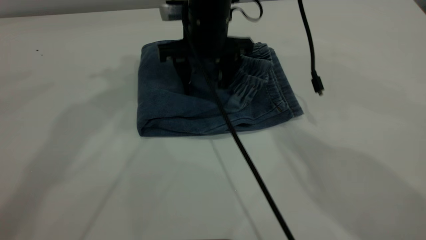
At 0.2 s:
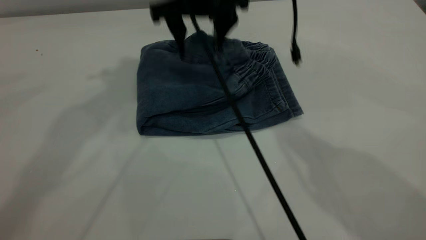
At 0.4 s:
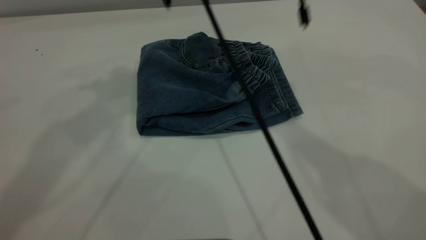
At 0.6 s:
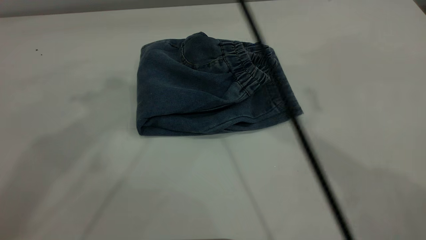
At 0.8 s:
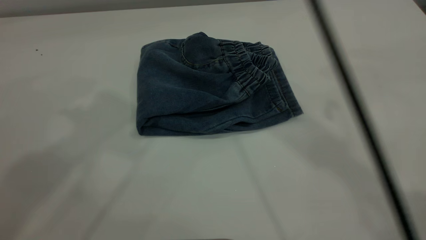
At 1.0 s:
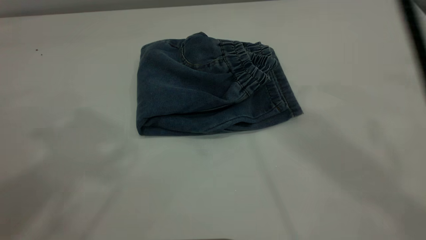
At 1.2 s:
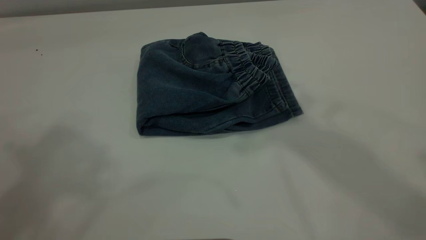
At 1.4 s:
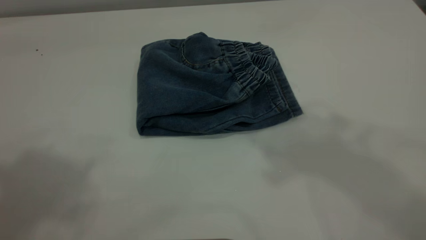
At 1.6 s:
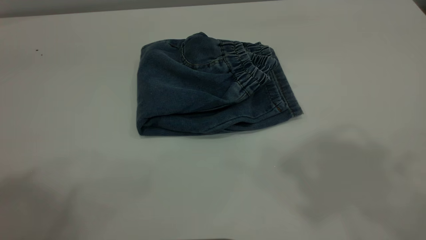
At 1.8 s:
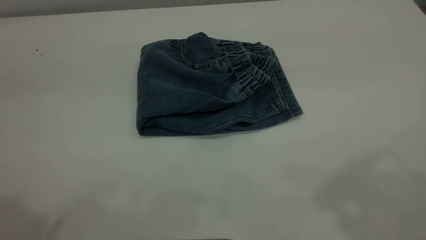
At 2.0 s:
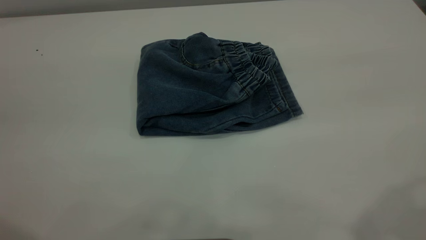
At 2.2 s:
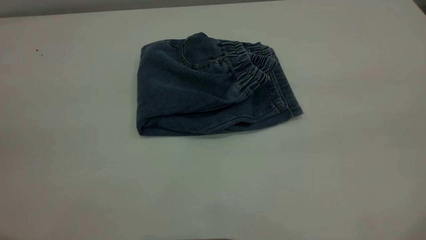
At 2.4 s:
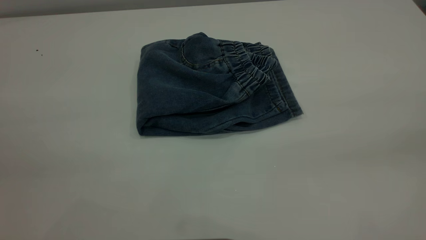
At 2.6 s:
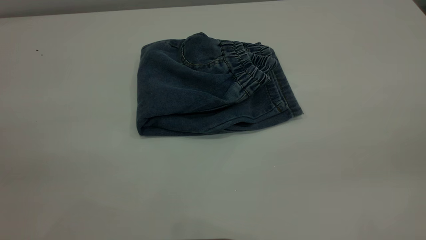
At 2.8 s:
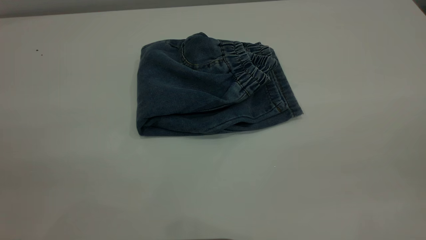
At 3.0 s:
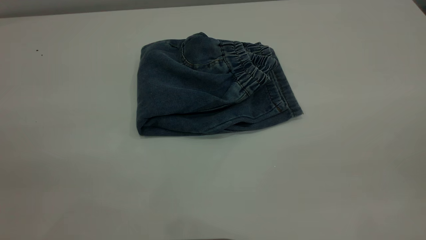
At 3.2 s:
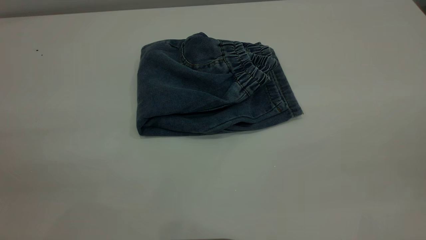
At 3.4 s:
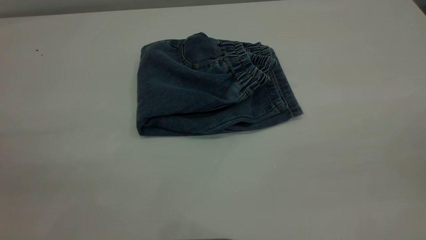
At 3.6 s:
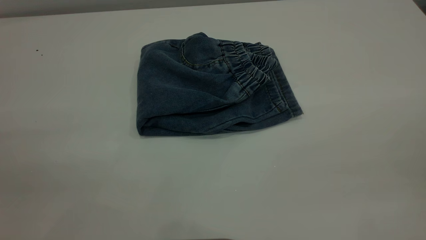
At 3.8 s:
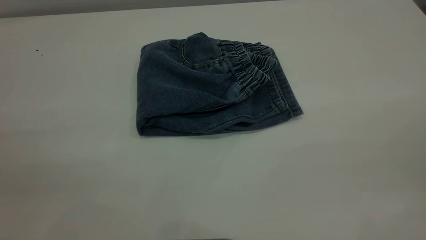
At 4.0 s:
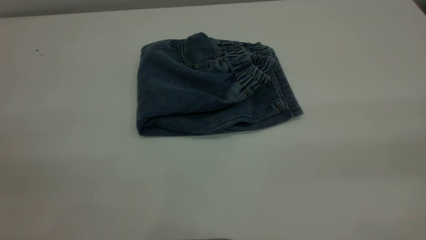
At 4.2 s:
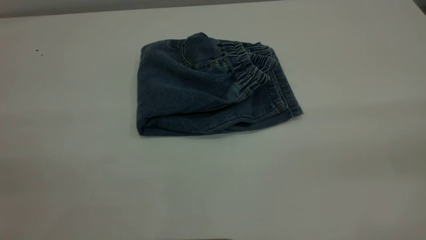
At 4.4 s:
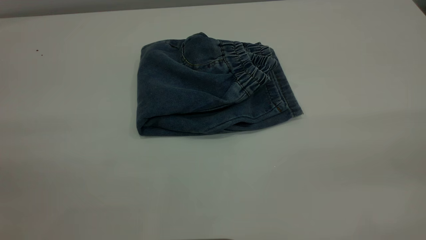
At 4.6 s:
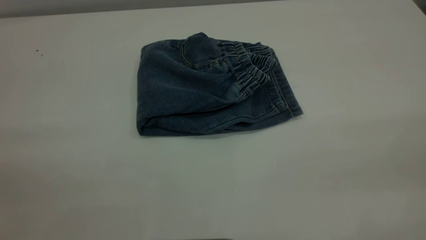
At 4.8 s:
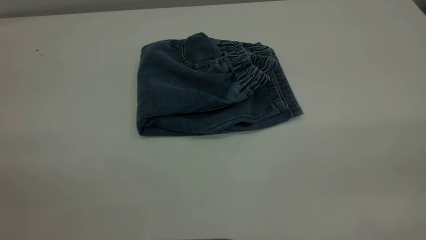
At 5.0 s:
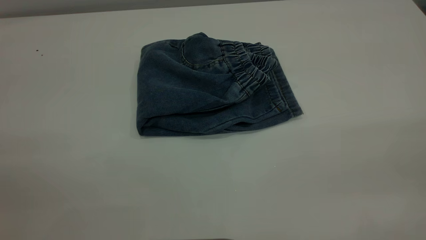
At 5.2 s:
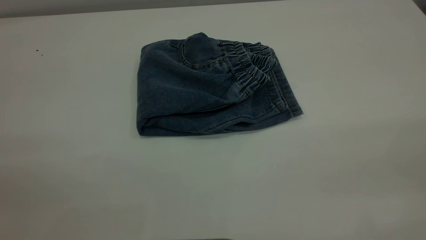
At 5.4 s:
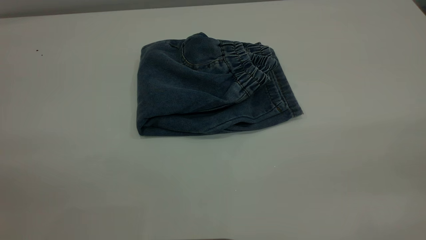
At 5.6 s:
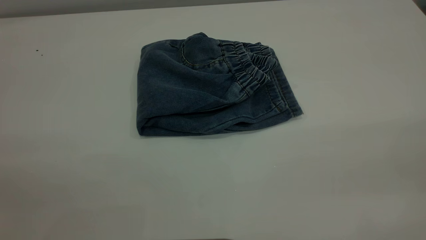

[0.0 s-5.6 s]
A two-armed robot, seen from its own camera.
0.0 to 1.4 s: The right gripper goes some 40 cm upward and backward; the left gripper heads backward and upward, covering approximately 25 cm.

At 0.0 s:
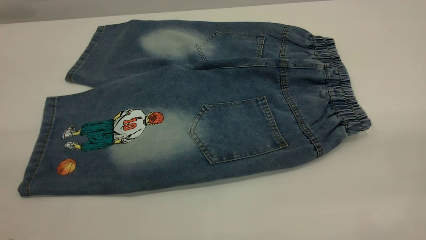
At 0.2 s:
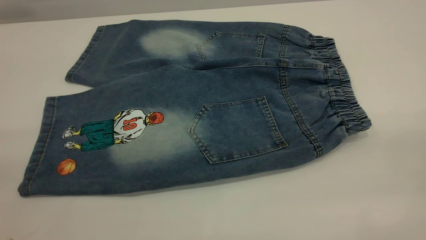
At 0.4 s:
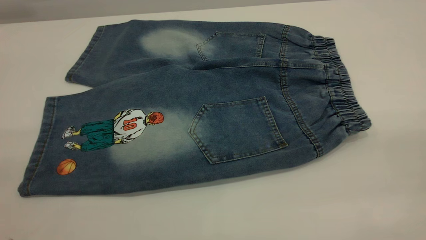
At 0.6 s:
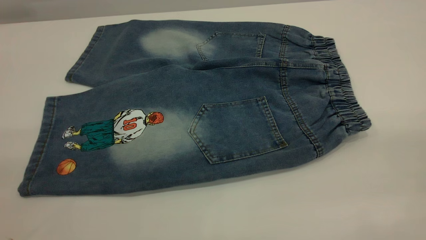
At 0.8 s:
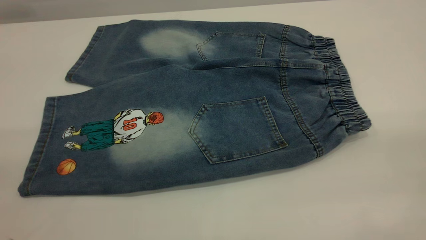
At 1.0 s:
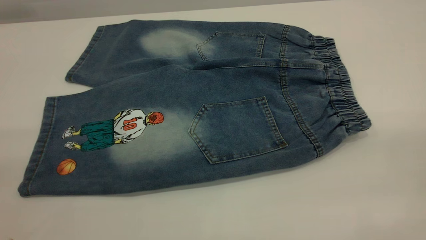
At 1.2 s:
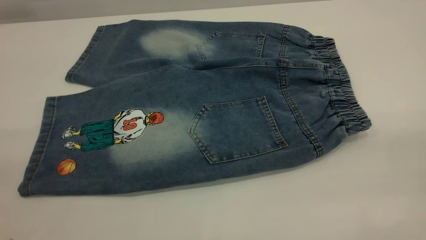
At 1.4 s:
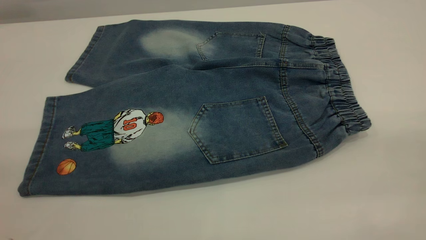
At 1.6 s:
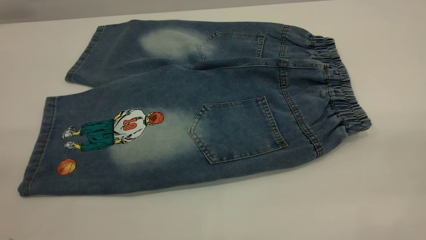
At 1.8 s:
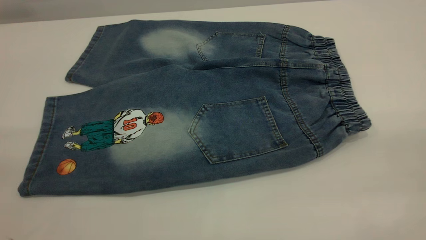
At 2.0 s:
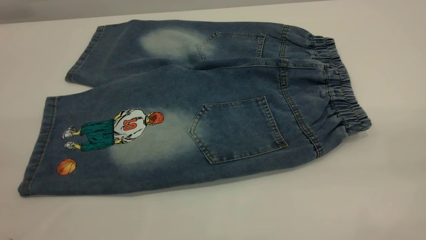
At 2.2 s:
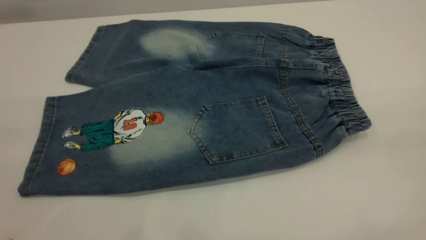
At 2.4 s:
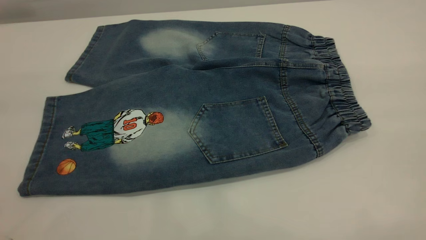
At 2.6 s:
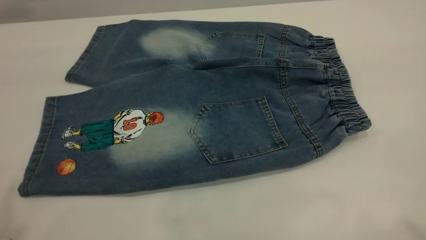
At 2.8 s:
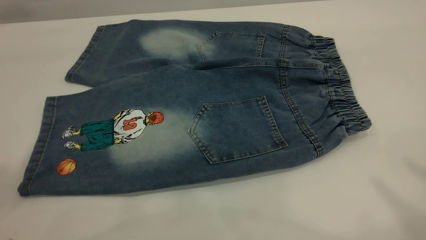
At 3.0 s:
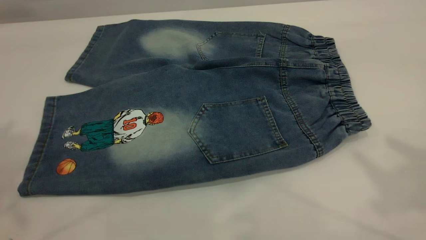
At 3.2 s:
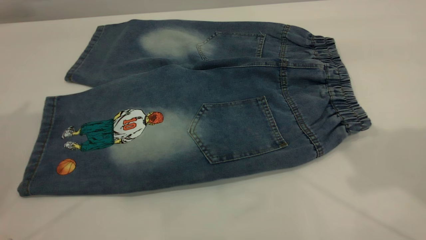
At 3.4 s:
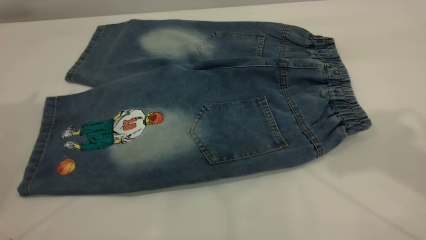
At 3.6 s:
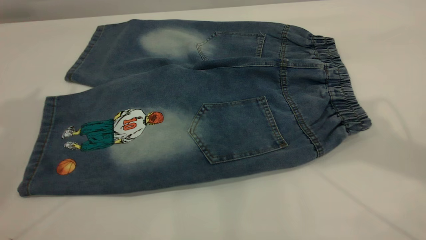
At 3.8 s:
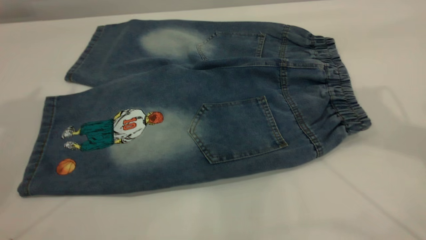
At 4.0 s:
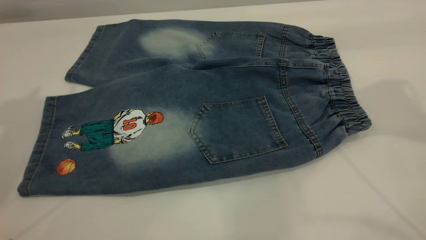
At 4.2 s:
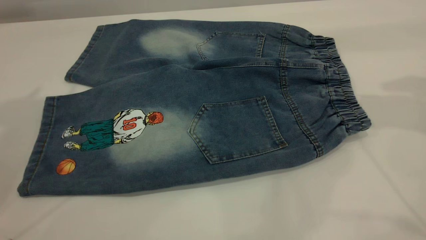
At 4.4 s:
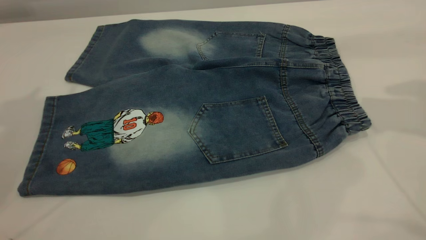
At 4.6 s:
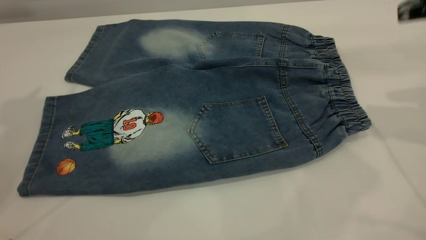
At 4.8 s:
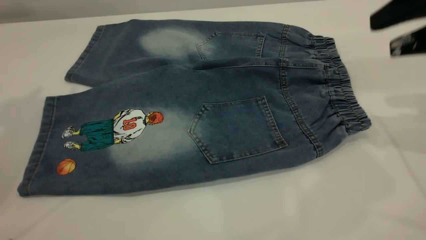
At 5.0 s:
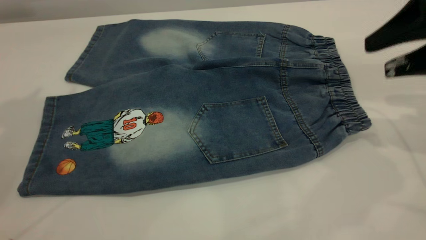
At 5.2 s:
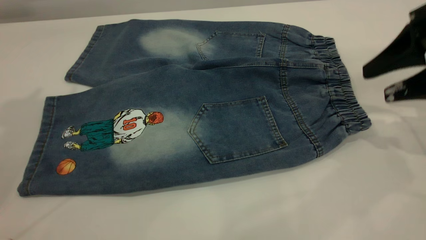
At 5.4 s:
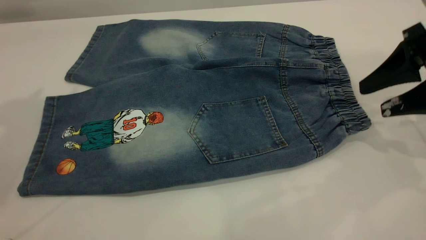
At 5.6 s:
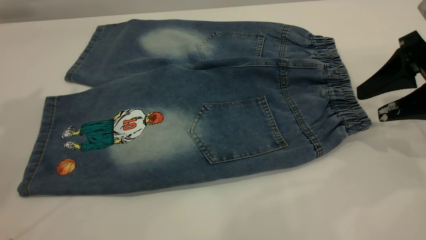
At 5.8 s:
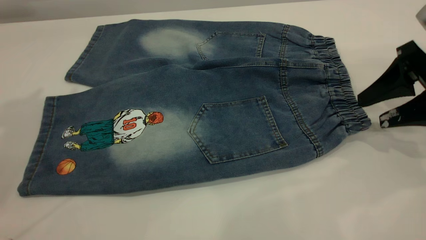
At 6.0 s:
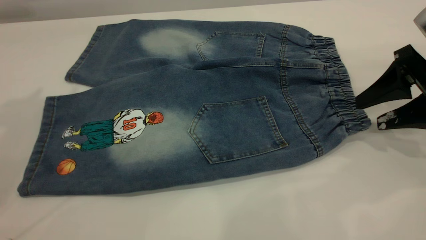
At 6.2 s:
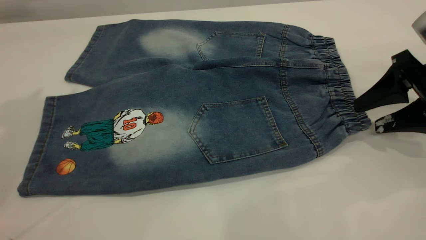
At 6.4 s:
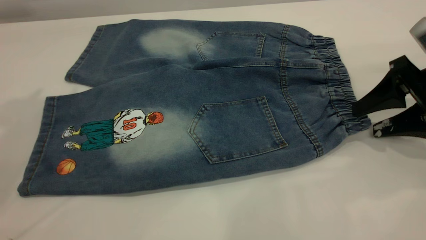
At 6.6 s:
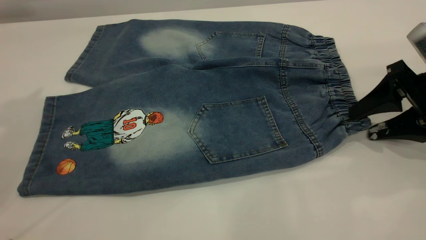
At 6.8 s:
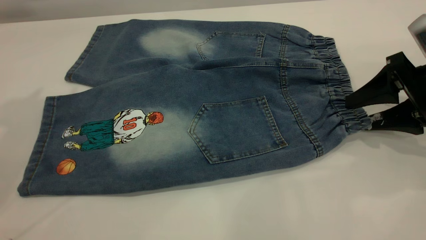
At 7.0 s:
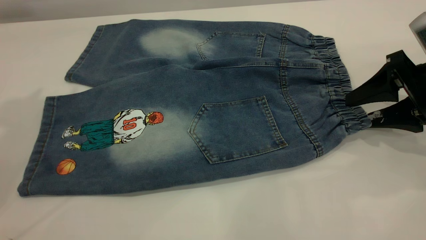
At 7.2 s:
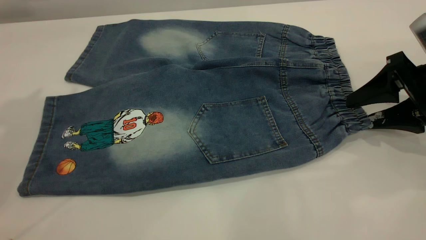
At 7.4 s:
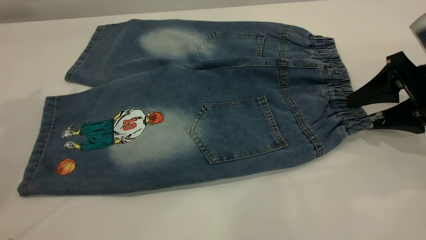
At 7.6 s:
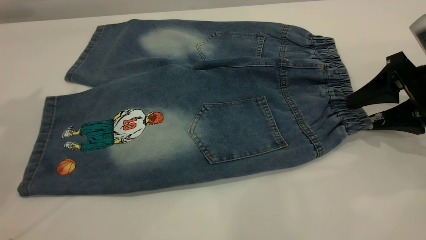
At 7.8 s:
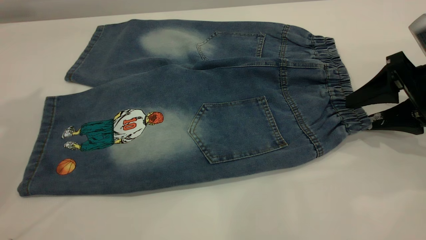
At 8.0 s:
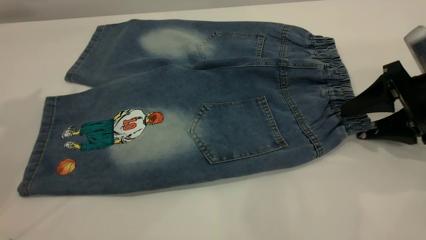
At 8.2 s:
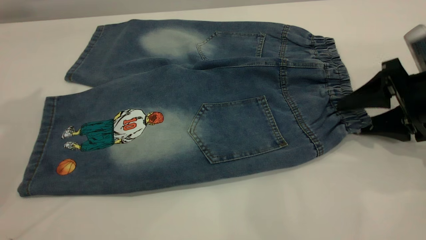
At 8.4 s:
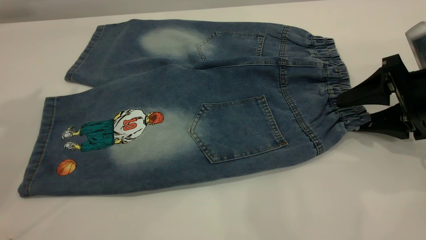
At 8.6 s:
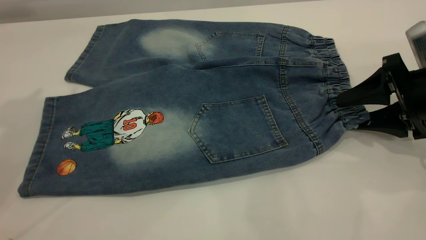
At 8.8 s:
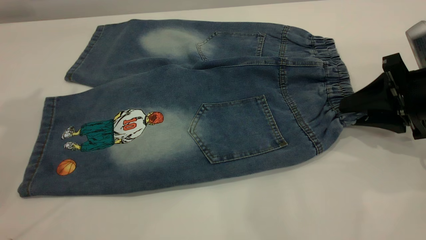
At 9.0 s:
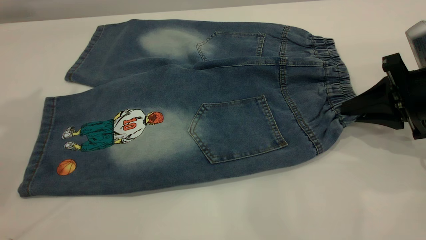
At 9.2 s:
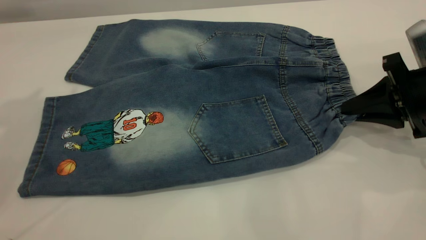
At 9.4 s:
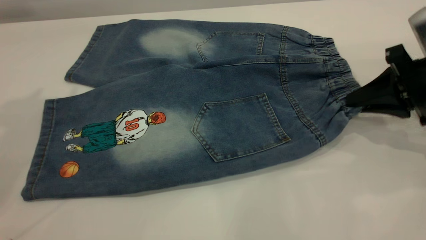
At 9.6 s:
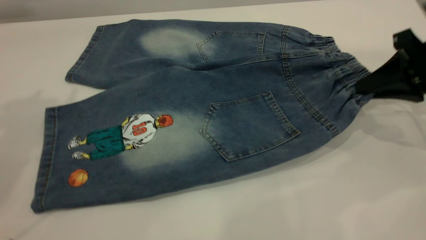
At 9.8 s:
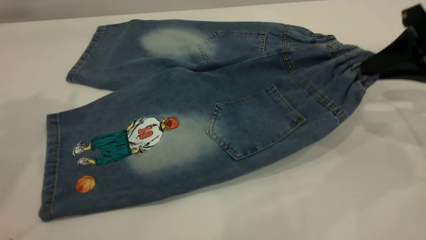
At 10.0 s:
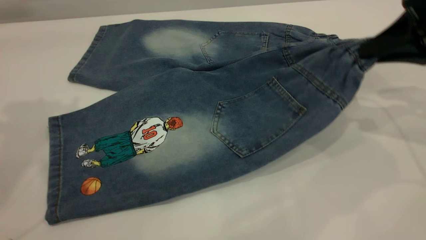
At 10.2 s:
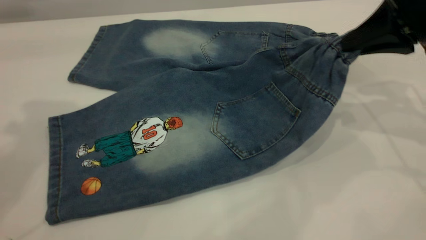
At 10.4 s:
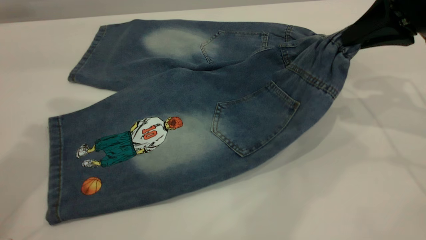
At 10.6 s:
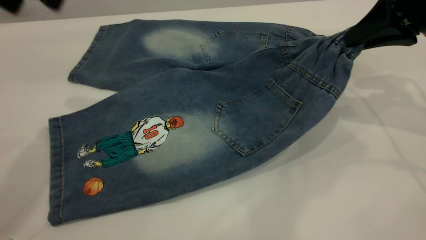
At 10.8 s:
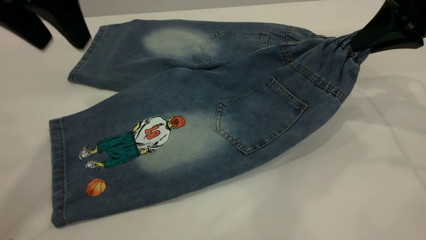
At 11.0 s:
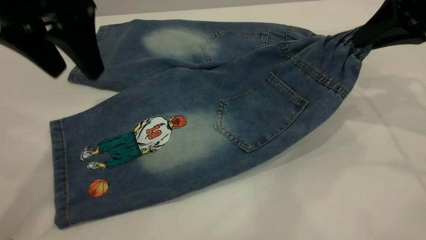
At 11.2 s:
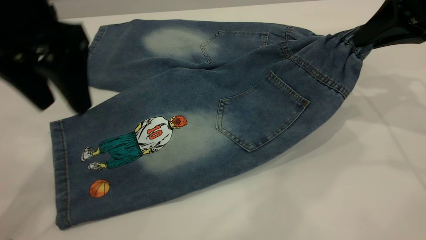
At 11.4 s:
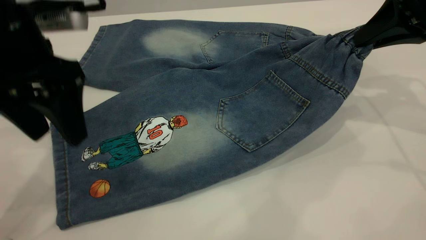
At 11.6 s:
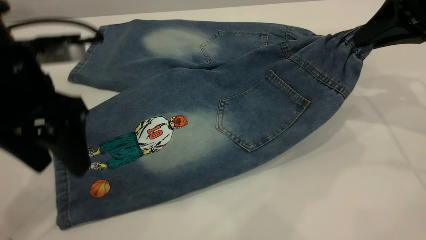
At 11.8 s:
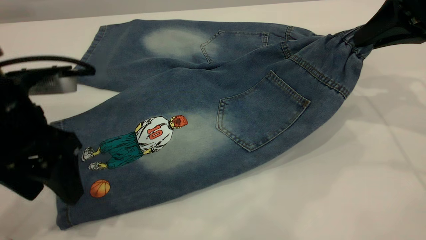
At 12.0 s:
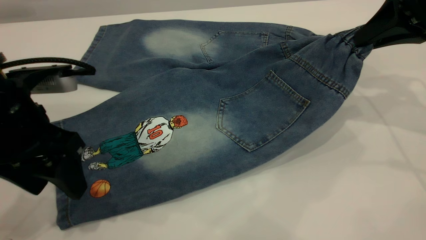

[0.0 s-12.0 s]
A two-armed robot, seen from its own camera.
0.0 to 1.6 s: Both grippers stay put.
4.4 to 6.0 s: The right gripper moves downward, approximately 15 cm.
6.0 to 7.6 s: There are only small adjustments of the grippers.
7.6 to 9.0 s: The right gripper closes.
9.0 to 10.4 s: The left gripper moves downward and to the right, about 10 cm. The right gripper is displaced upward by about 10 cm.
10.4 to 12.0 s: The left gripper moves downward, some 20 cm.
